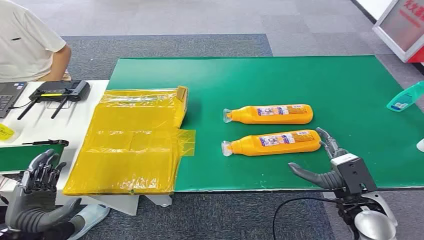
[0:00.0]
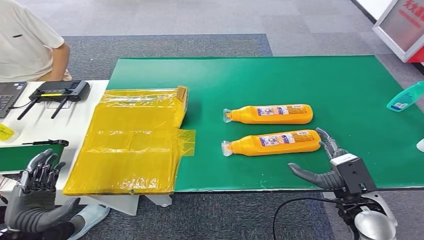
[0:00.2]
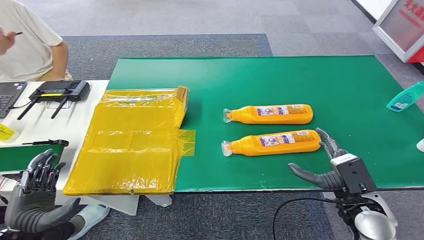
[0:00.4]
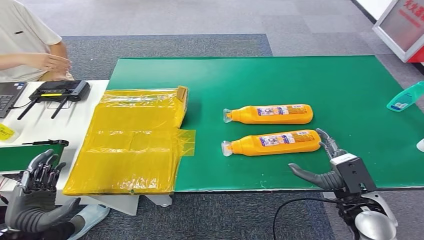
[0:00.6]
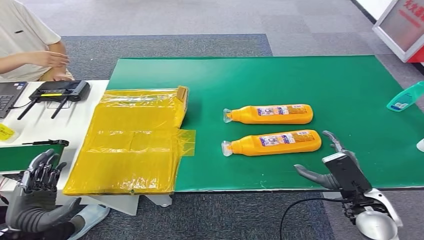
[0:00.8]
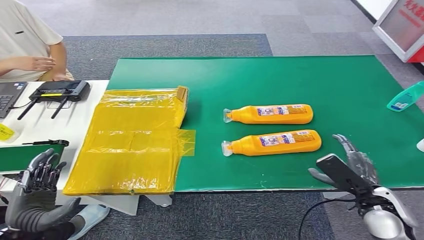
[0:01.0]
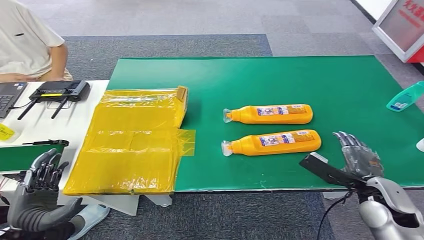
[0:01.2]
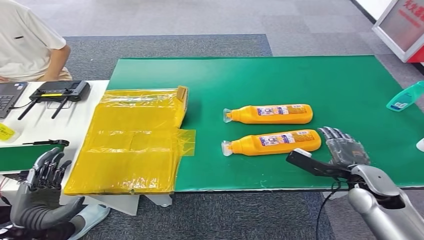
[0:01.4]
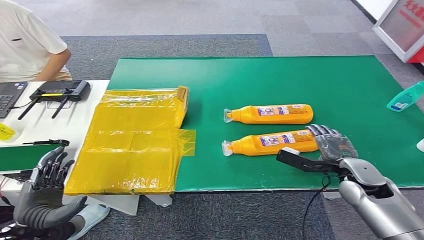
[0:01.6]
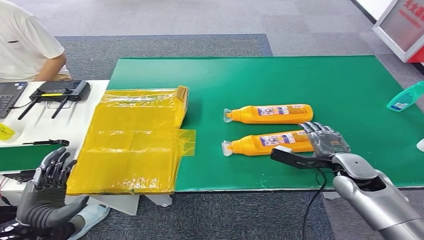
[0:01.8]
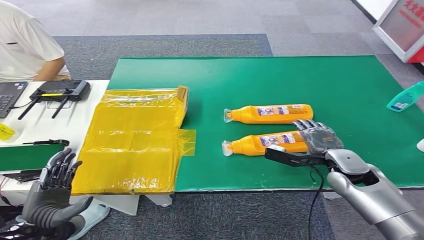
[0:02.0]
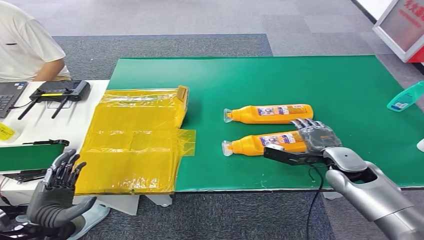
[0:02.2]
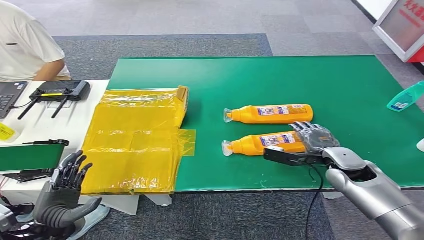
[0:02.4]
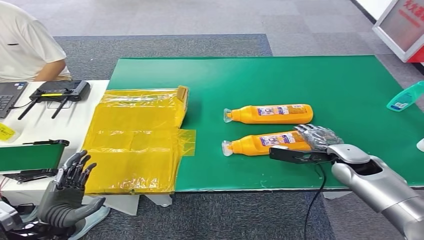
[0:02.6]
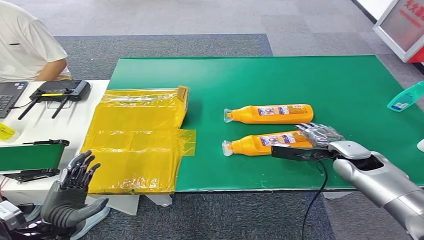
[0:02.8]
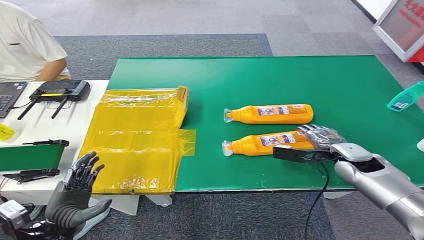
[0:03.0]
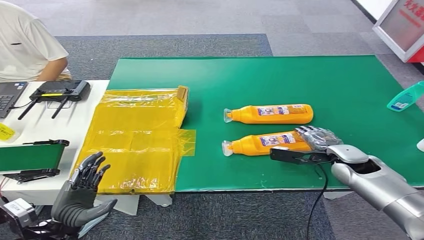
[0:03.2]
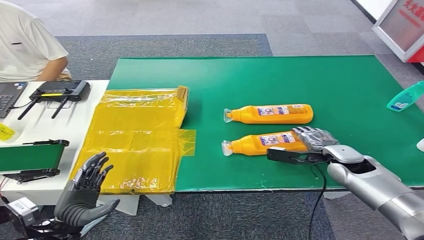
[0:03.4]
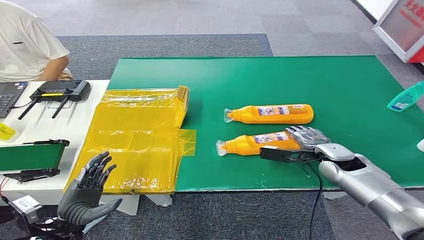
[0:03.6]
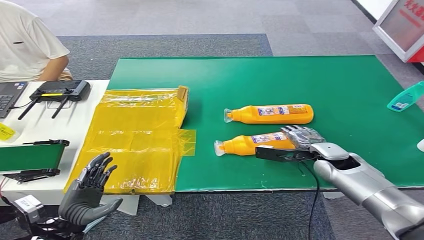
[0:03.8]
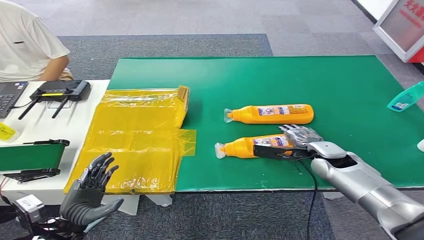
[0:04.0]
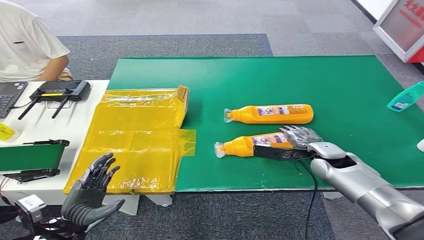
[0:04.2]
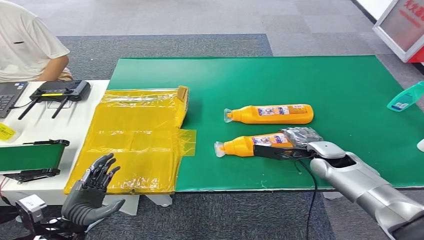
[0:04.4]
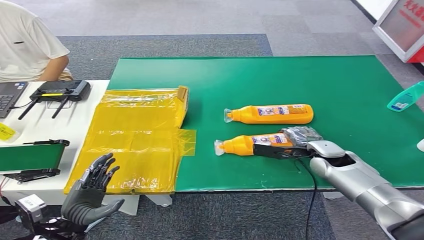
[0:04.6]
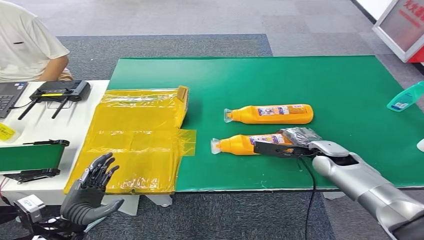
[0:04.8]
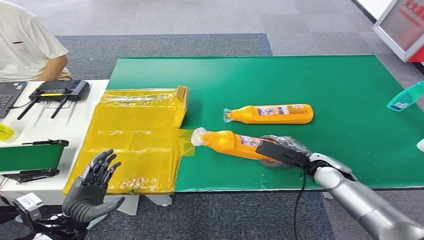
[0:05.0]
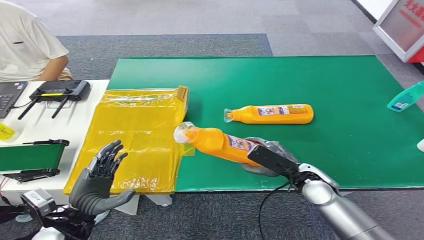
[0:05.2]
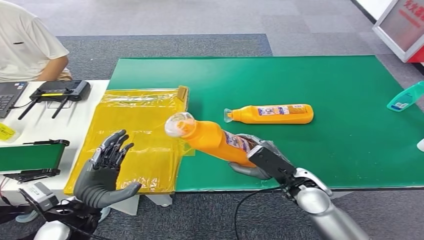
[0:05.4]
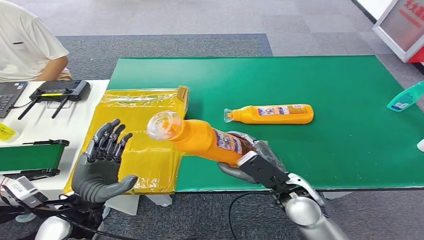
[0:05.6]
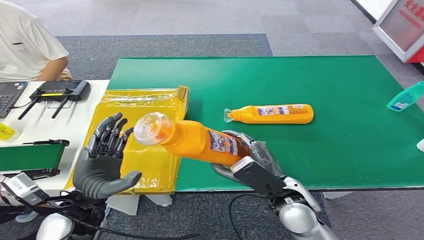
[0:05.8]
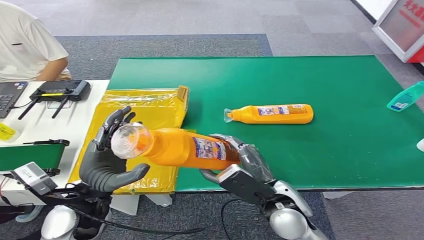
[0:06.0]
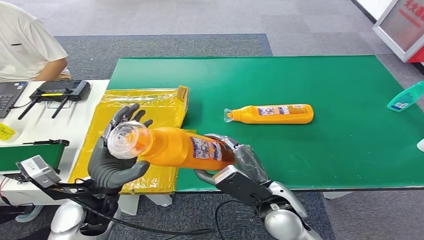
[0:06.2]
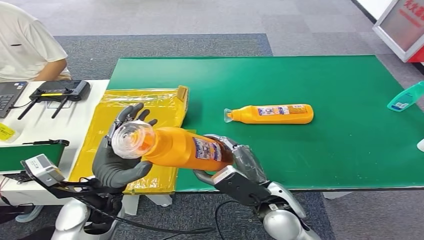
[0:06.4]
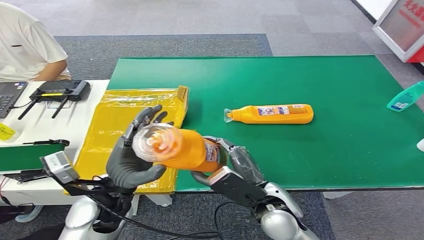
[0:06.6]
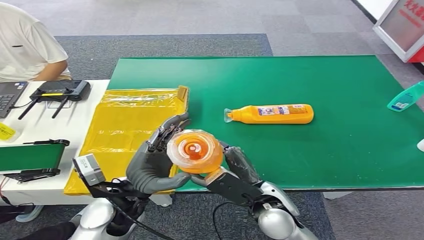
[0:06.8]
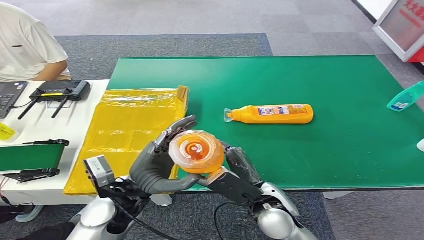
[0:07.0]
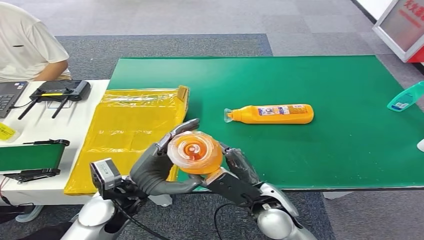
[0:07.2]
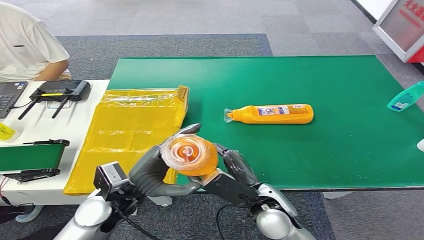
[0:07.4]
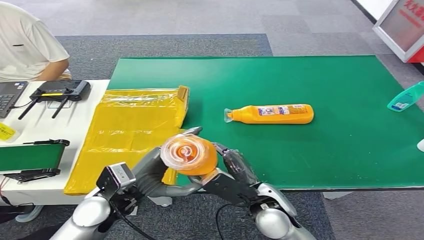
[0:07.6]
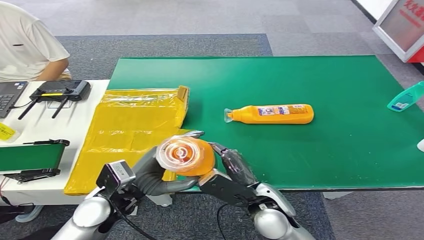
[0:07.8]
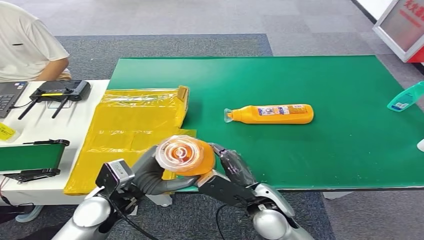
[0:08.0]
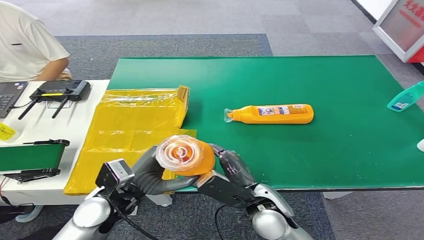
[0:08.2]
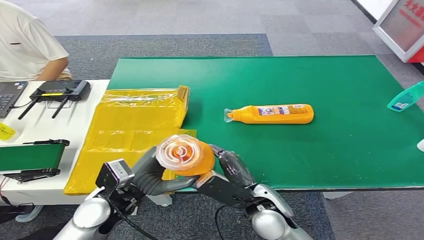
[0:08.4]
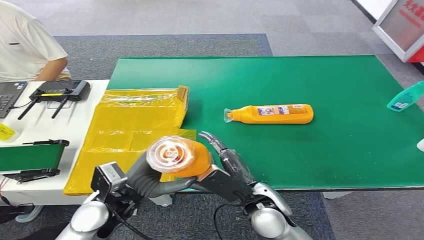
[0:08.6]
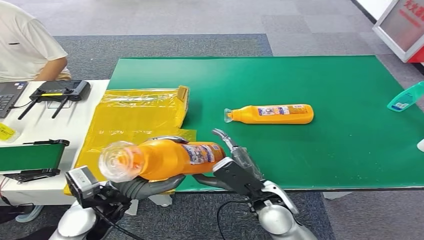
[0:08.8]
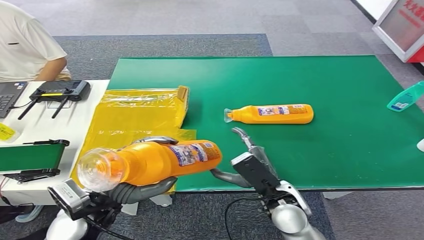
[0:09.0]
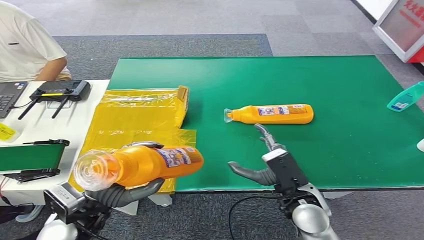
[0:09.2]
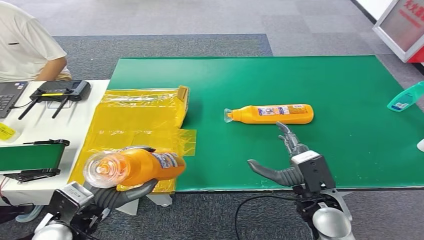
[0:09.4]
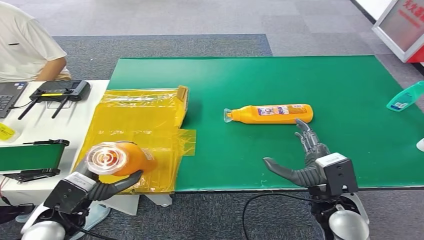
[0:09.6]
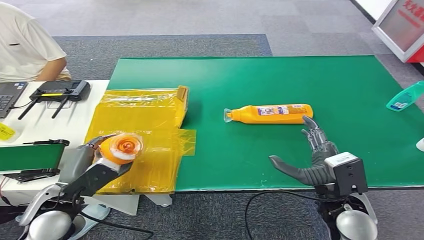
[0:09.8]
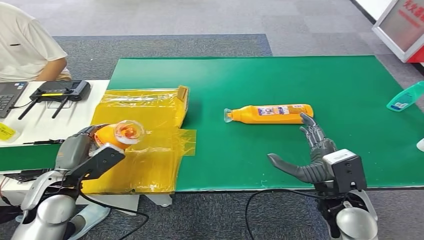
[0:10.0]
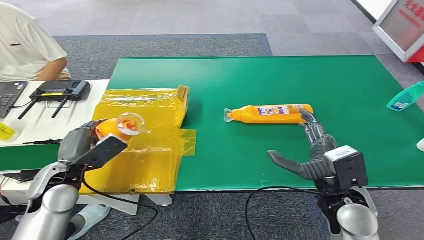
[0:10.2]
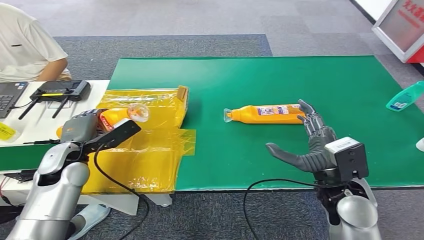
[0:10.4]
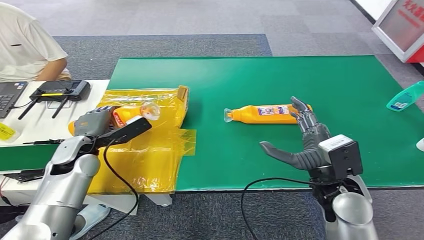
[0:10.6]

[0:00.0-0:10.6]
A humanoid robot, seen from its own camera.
Step, 0:00.0 to 0:05.8: Pick up the bottle from the table.
0:01.6 to 0:03.0: The right hand moves forward, some 5 cm.
0:03.0 to 0:04.6: The right hand ends up some 5 cm from where it was.
0:07.6 to 0:09.0: The hands move only a little.

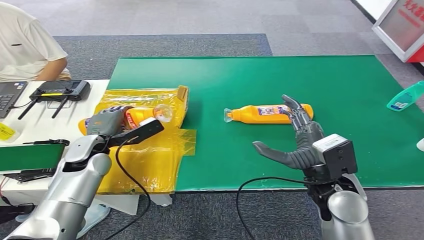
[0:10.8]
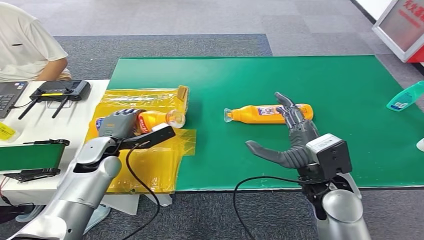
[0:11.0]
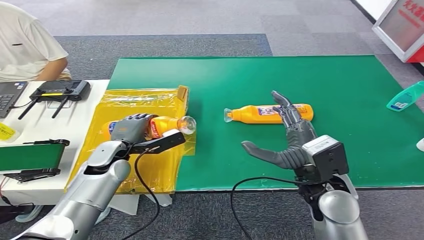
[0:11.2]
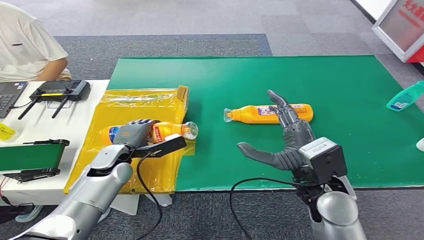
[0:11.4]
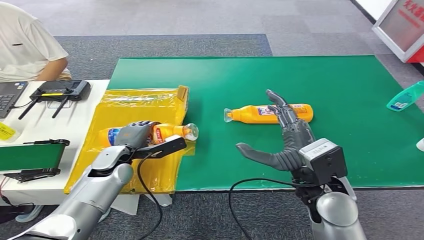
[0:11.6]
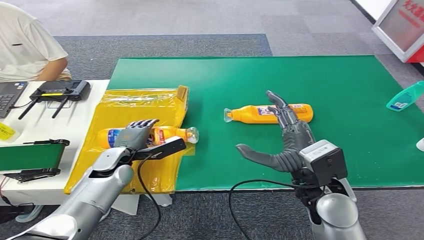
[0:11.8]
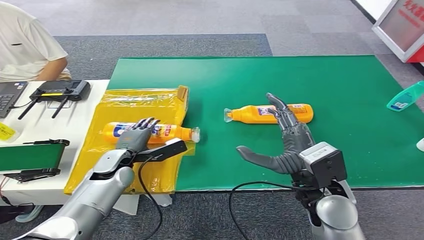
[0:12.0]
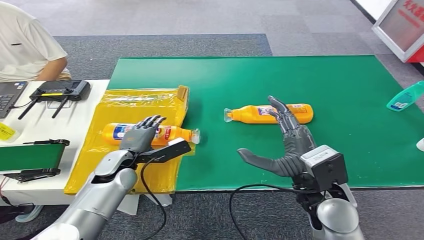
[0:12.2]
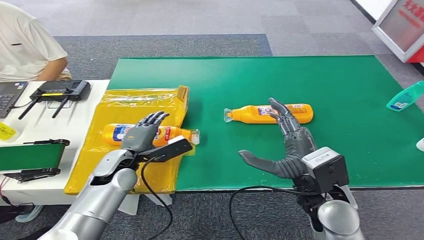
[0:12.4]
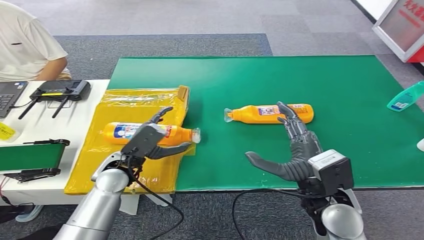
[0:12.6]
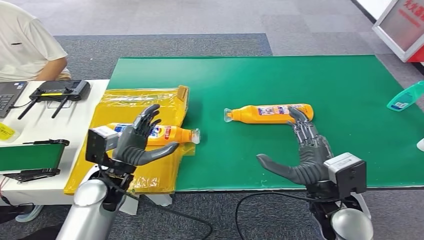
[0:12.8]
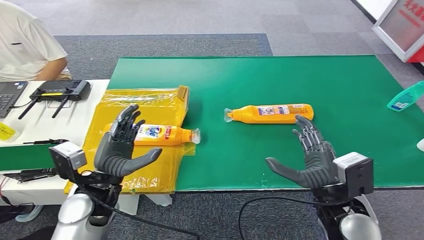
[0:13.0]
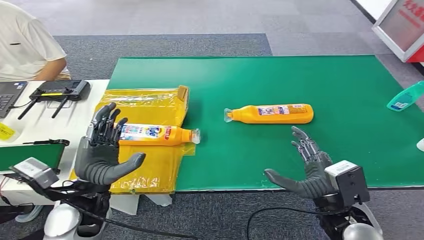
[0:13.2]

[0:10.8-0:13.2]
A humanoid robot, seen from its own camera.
Step, 0:10.8 to 0:13.0: Turn the bottle to the front side.
0:10.8 to 0:12.0: The left hand travels downward by about 5 cm.
0:12.0 to 0:13.2: The left hand goes roughly 15 cm backward and upward; the right hand moves backward, roughly 5 cm.

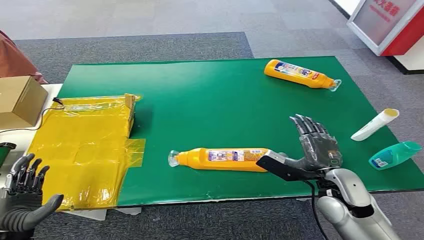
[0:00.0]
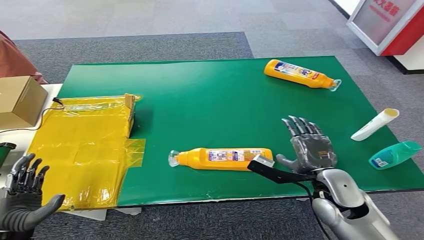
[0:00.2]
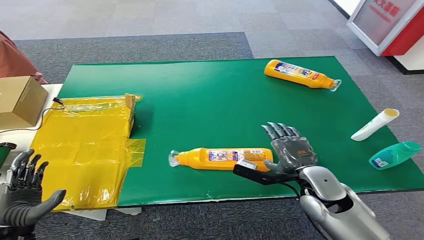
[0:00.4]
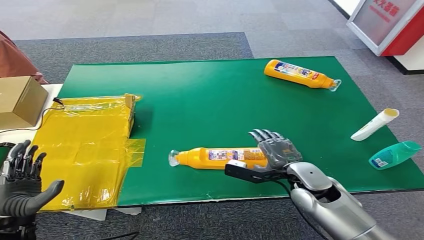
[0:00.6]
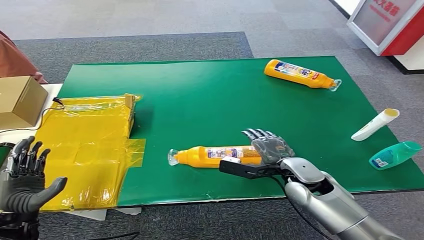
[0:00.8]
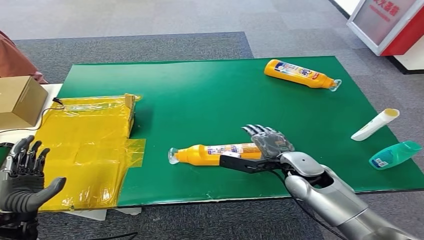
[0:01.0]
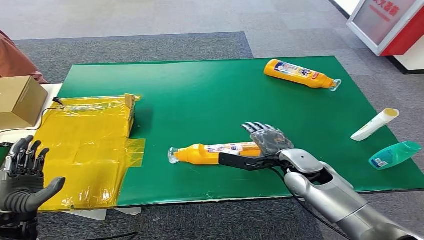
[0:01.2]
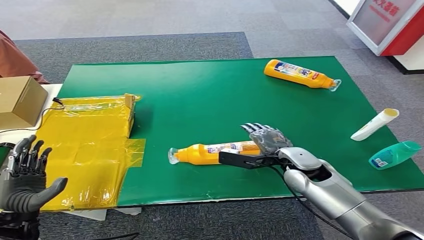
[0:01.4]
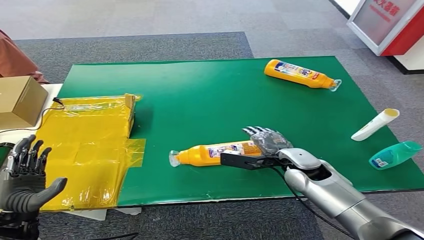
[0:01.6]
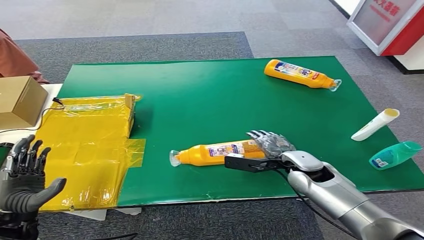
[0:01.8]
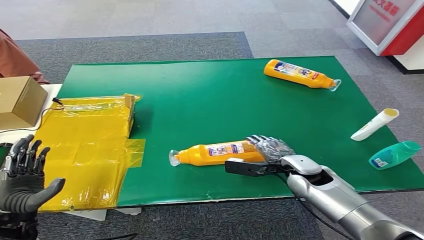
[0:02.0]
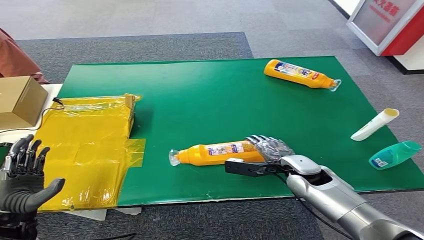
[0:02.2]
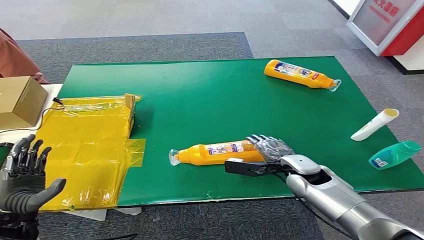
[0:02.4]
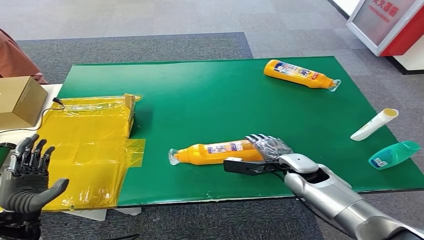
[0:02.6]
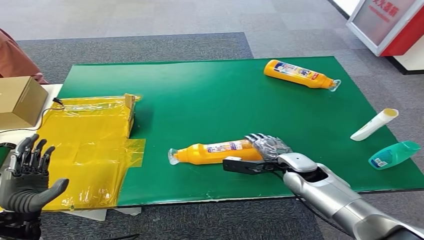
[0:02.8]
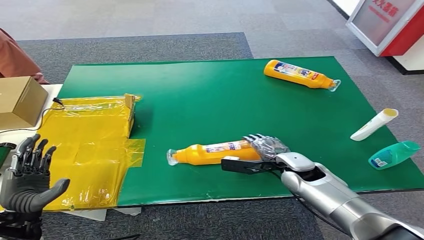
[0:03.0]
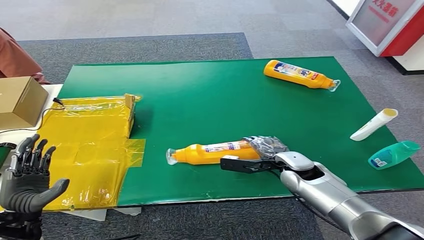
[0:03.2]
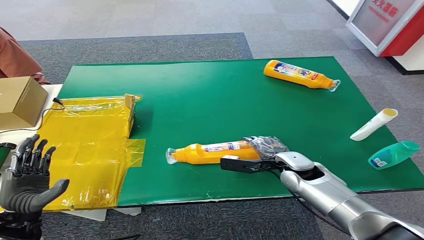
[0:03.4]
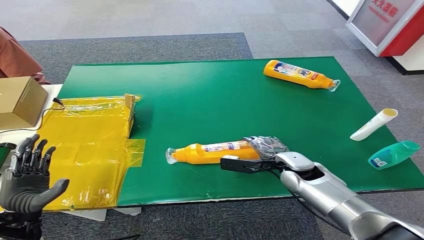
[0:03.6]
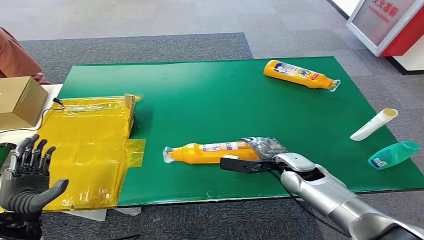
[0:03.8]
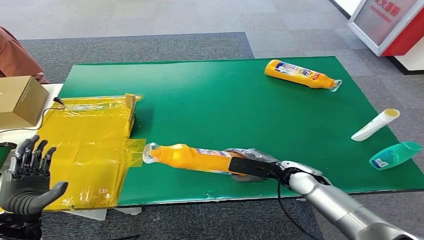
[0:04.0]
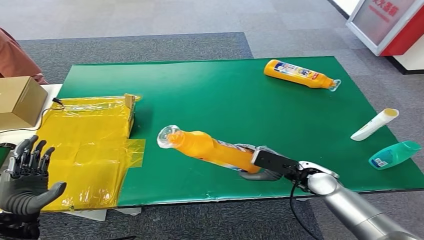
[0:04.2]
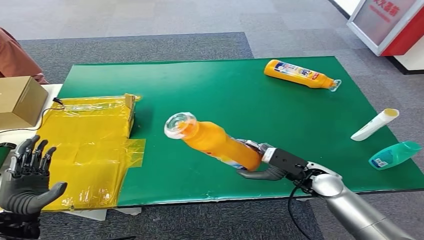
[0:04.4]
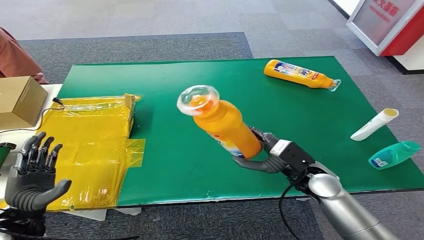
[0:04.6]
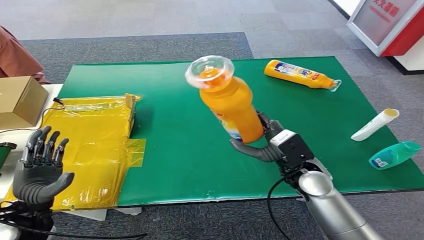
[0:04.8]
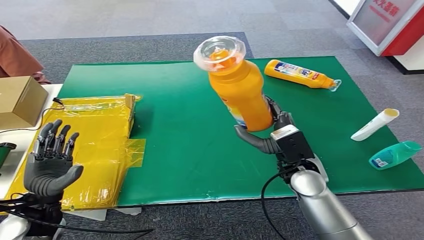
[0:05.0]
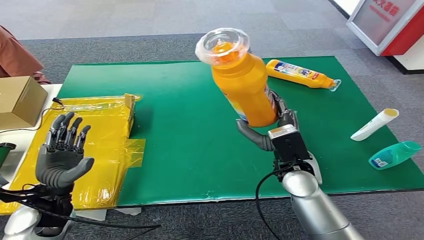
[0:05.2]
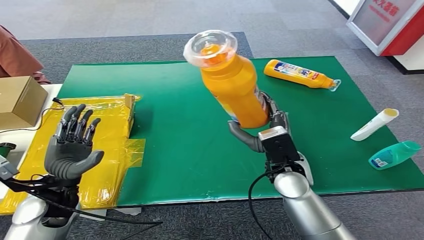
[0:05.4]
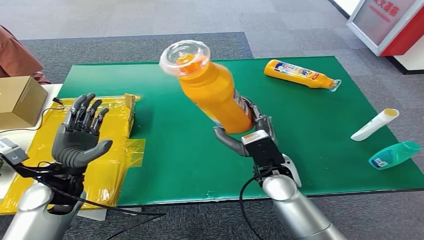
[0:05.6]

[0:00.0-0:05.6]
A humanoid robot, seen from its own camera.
Step, 0:00.0 to 0:04.8: Pick up the bottle from the table.
0:01.4 to 0:02.8: The hands move only a little.
